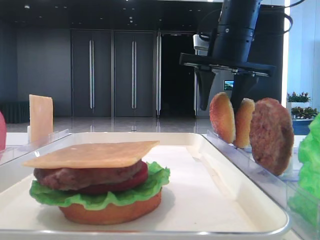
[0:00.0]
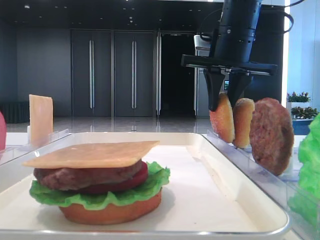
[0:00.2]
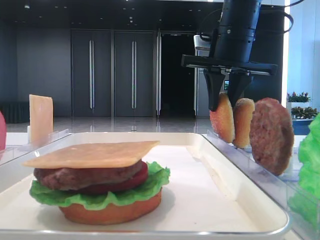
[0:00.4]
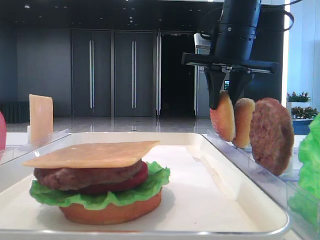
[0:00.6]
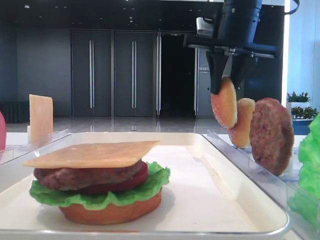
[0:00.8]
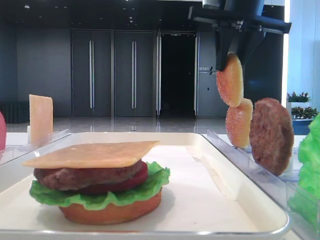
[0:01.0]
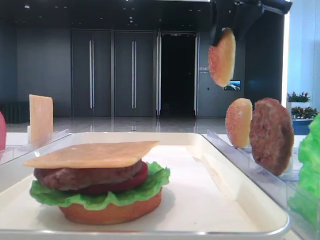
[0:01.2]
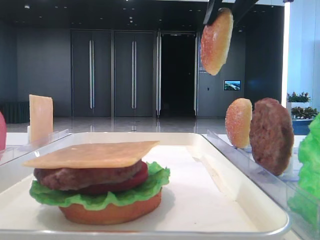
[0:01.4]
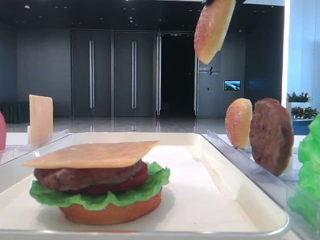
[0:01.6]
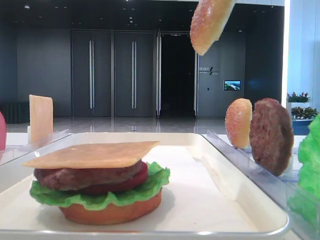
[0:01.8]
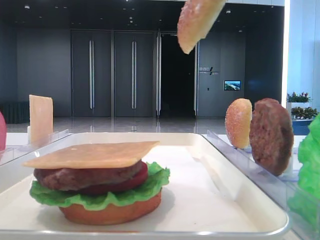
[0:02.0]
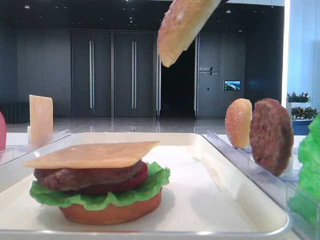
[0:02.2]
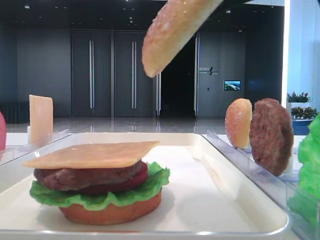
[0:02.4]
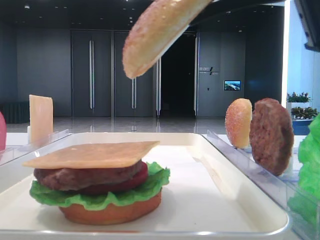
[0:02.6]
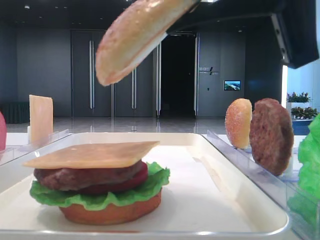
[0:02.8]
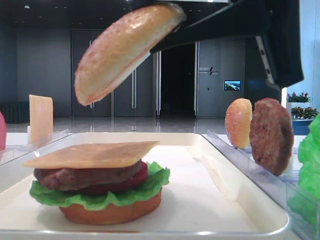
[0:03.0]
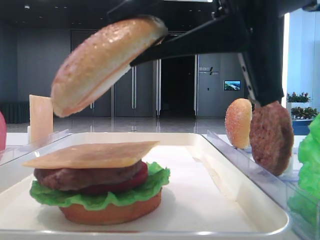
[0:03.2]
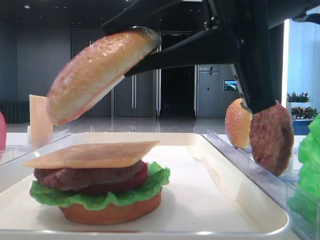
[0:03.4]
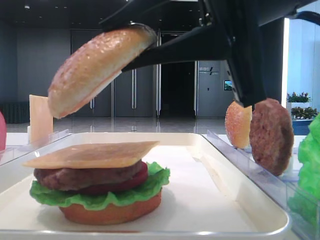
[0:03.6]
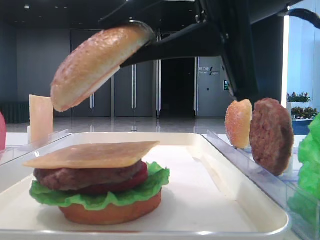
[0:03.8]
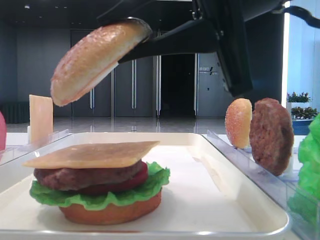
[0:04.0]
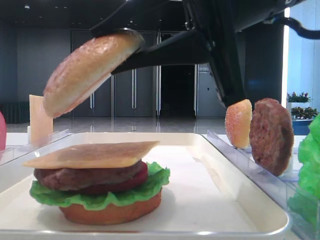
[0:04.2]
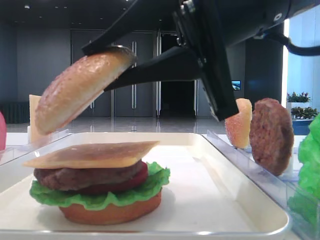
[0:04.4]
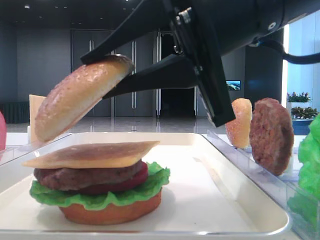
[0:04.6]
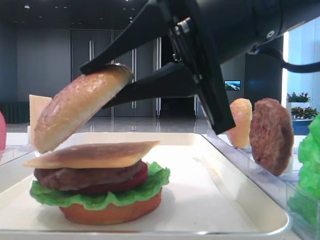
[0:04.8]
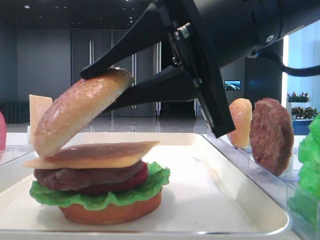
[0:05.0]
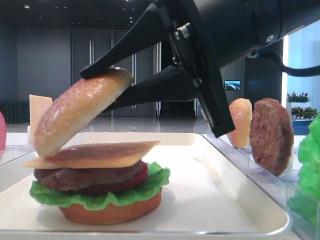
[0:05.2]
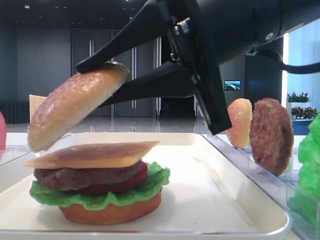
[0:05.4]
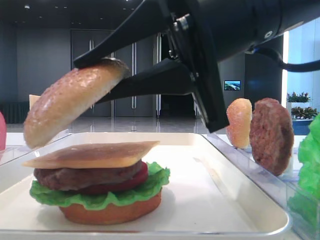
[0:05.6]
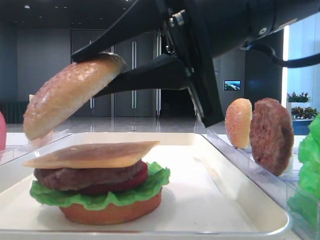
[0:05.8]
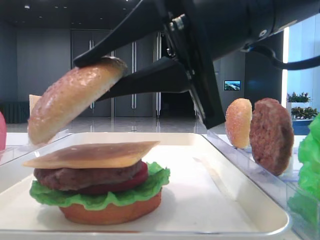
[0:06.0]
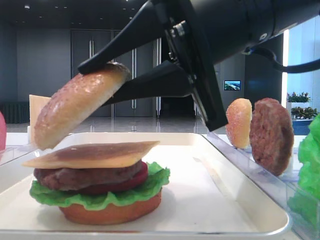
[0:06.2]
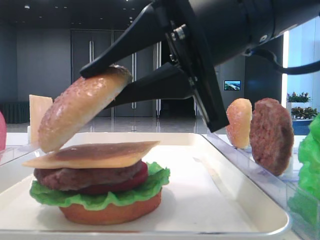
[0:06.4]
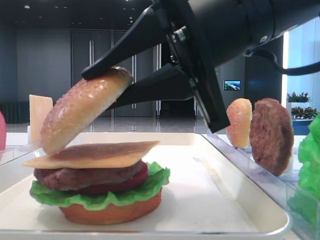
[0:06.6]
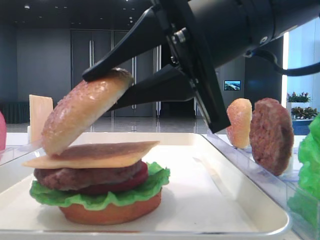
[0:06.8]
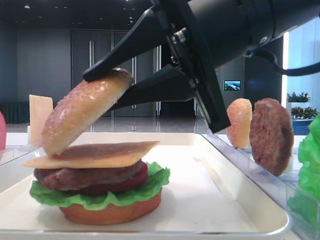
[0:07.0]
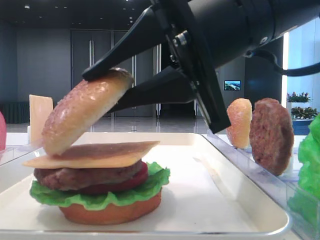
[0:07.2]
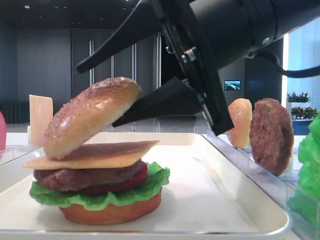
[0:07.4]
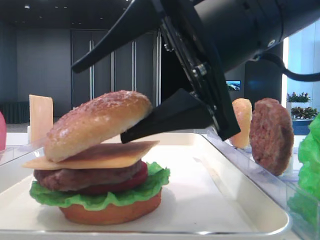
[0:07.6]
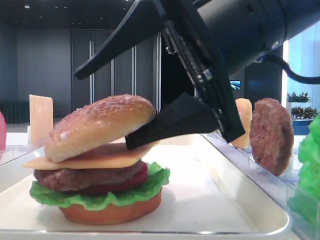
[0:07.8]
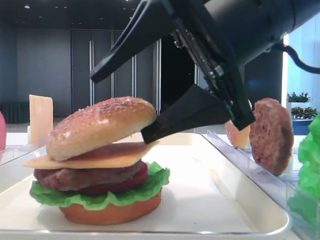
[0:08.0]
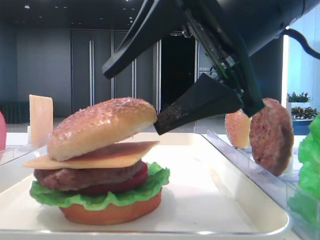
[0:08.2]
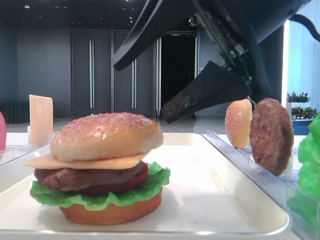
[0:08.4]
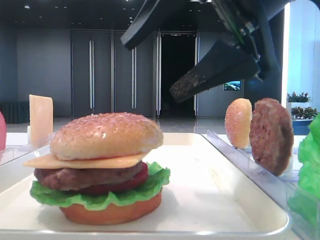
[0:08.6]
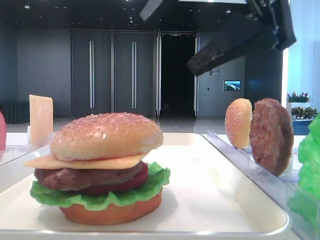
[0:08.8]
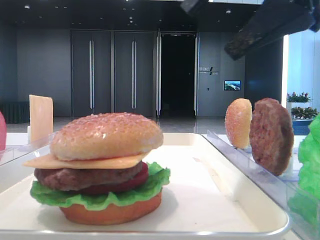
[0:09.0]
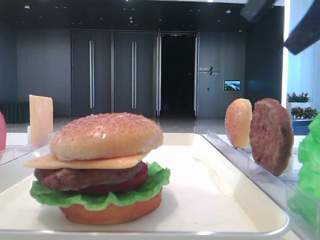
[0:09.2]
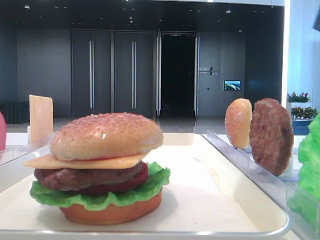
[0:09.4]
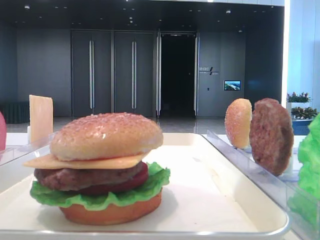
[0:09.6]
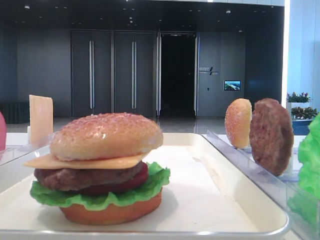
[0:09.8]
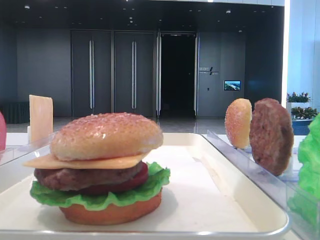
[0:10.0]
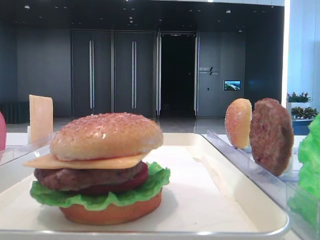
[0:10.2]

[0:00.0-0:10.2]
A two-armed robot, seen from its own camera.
Step, 0:00.6 to 0:08.2: Place the top bread slice on the cheese with the right hand.
0:00.0 to 0:01.4: The right gripper heads upward and backward, covering some 15 cm, and closes up.
0:01.4 to 0:03.0: The right gripper shifts some 20 cm backward and downward.
0:03.0 to 0:04.4: The right gripper ends up some 5 cm from where it was.
0:04.4 to 0:05.8: Both grippers stay put.
0:05.8 to 0:07.2: Both grippers stay about where they are.
0:07.2 to 0:08.8: The right gripper travels upward by roughly 5 cm, and opens up.
0:08.8 to 0:10.2: The right gripper goes about 20 cm to the right.

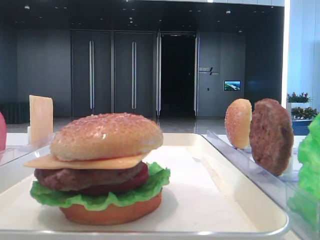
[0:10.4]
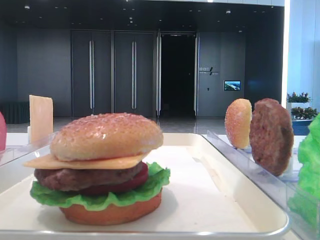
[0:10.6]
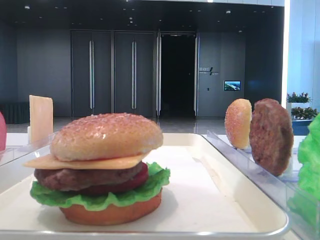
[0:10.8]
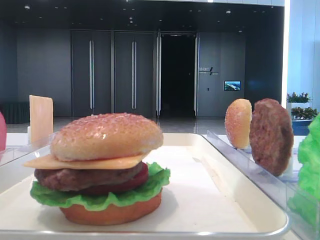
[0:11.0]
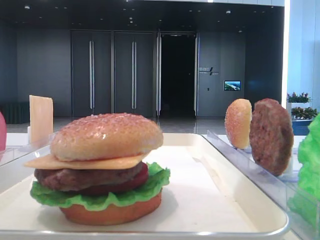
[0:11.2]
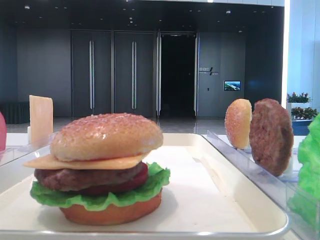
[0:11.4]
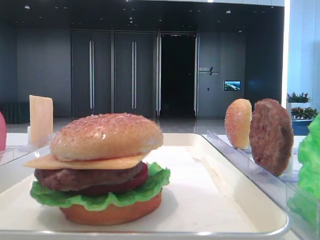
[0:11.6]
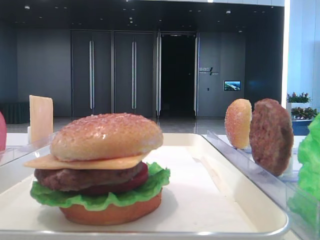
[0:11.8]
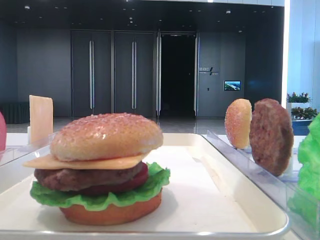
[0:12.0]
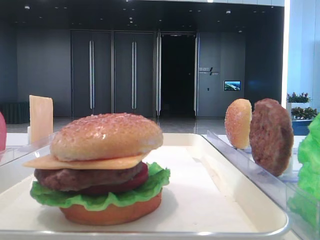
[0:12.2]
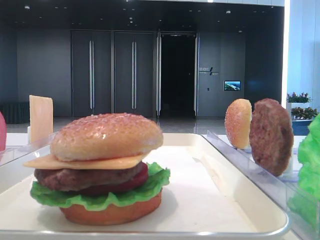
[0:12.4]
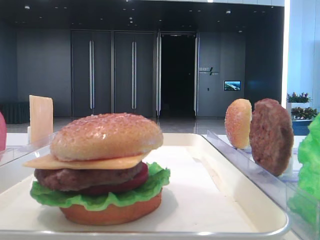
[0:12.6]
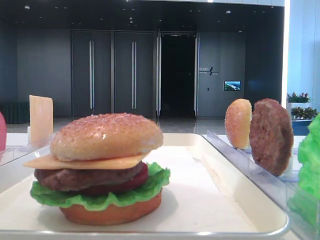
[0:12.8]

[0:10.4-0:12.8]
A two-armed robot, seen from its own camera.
0:11.6 to 0:12.8: Neither gripper changes place.
